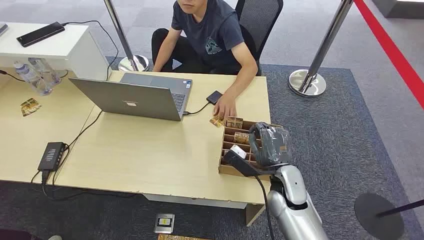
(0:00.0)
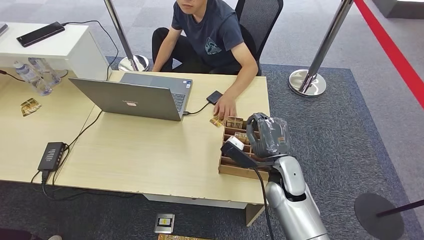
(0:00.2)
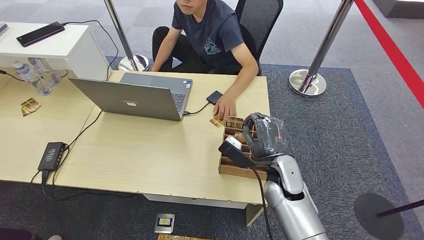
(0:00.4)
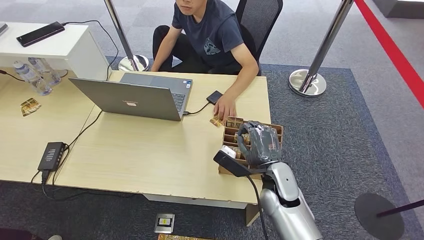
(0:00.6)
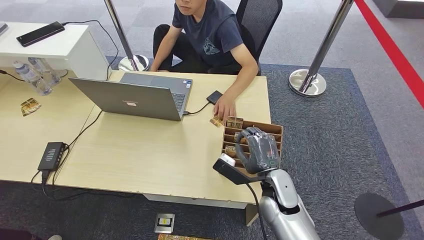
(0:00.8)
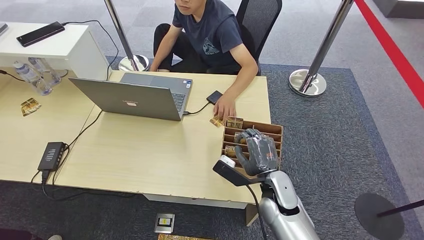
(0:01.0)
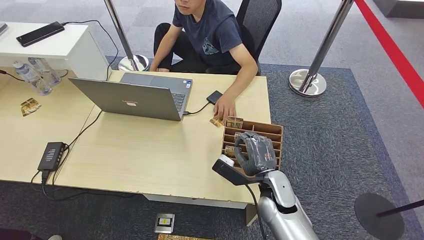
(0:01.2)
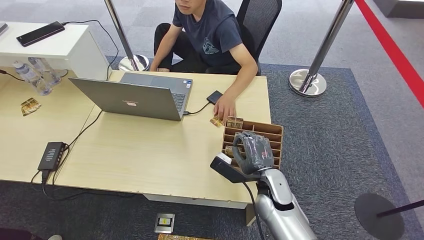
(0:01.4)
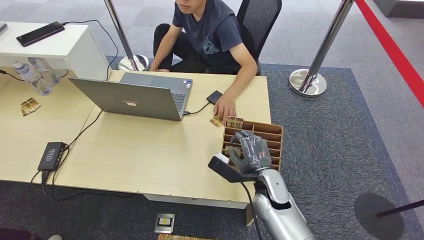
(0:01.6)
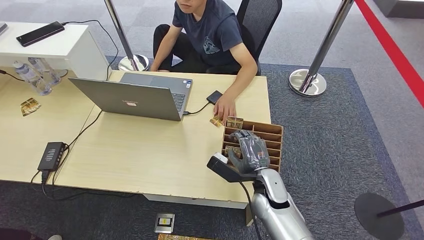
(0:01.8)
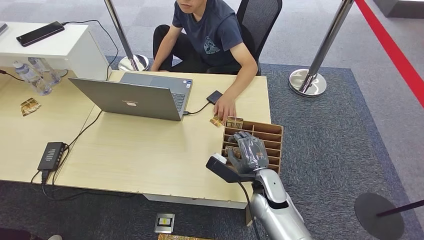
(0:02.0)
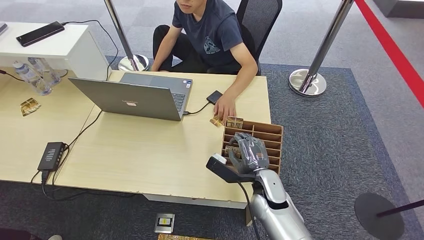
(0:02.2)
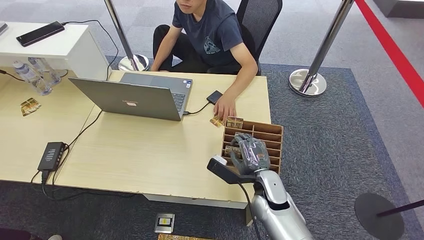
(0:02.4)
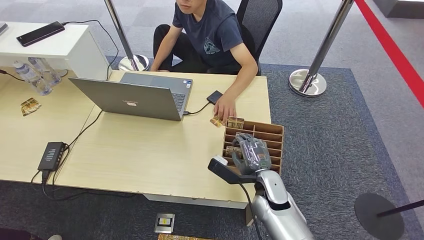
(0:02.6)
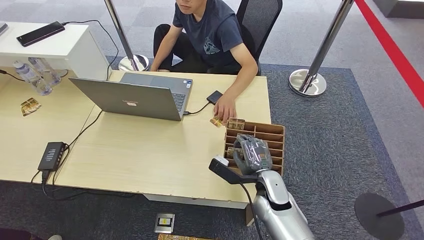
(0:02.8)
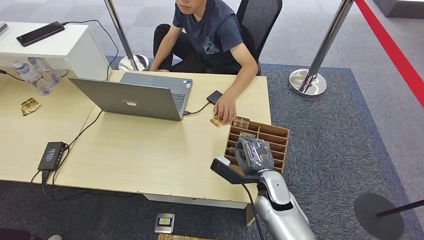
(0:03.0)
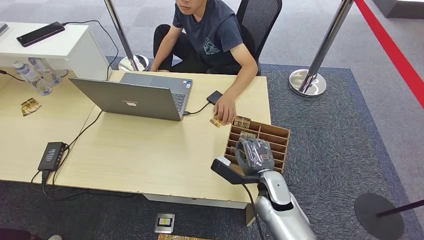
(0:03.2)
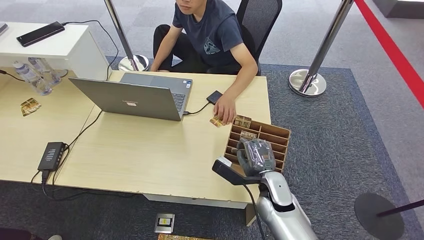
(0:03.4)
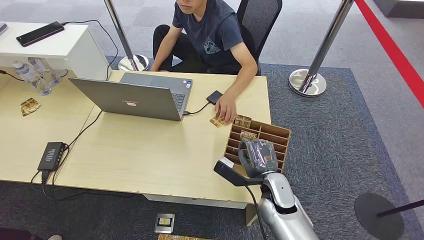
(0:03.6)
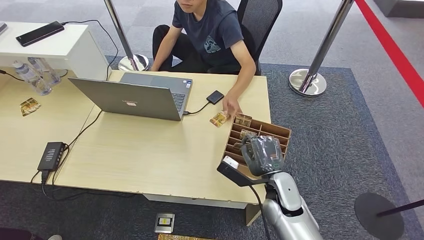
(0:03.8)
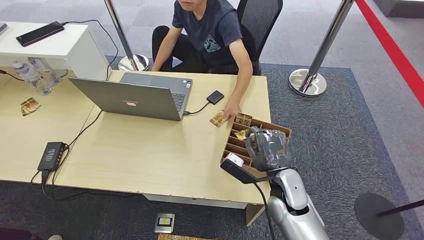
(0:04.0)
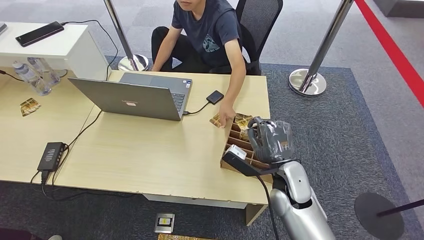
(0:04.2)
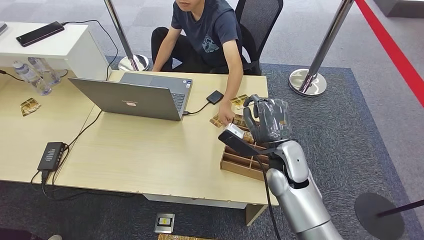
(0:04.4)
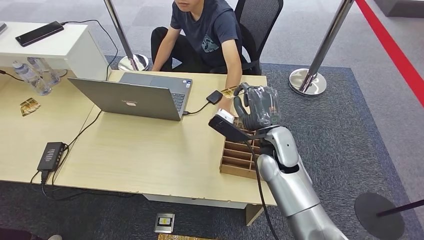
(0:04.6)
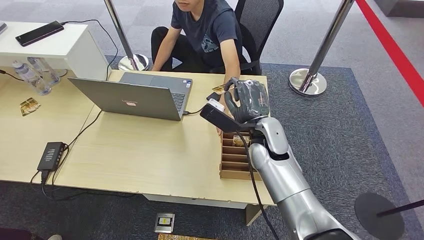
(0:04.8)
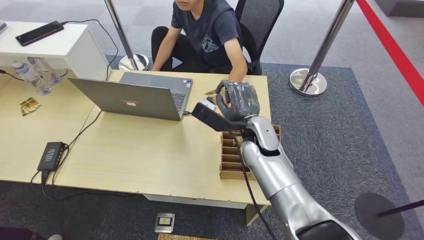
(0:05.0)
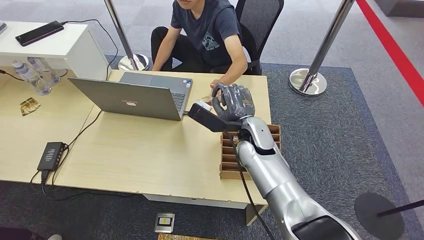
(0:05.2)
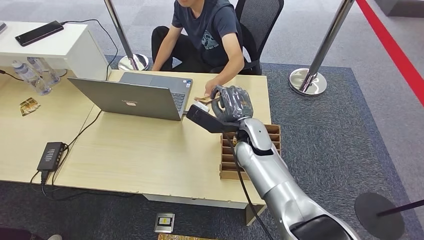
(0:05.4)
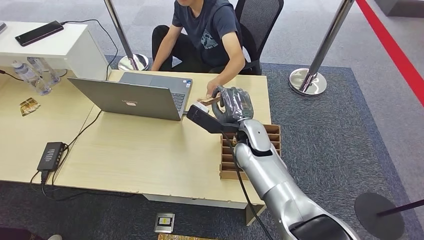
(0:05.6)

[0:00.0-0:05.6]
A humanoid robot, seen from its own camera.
Step, 0:00.0 to 0:04.0: Pick up the room card from the card holder.
Step, 0:04.2 to 0:05.6: Hand the room card to the target.
0:01.4 to 0:02.8: The hands move only a little.
0:02.8 to 0:04.2: The right hand heads upward, covering about 10 cm.
0:04.2 to 0:05.6: The right hand moves to the left, about 5 cm.
